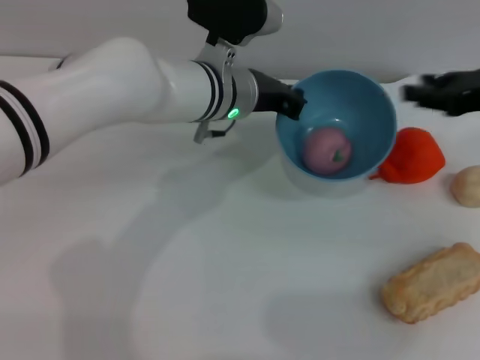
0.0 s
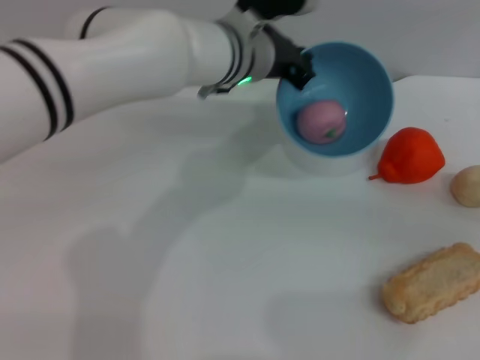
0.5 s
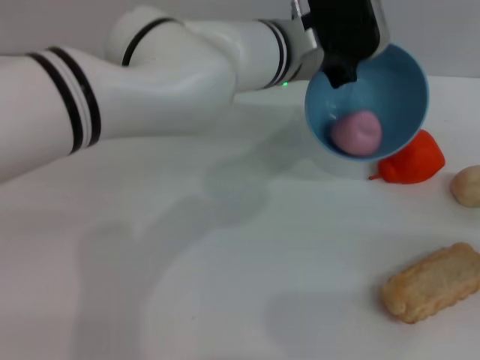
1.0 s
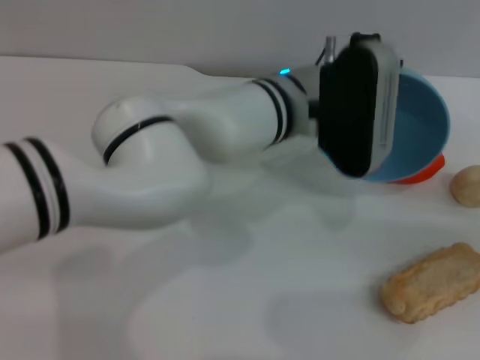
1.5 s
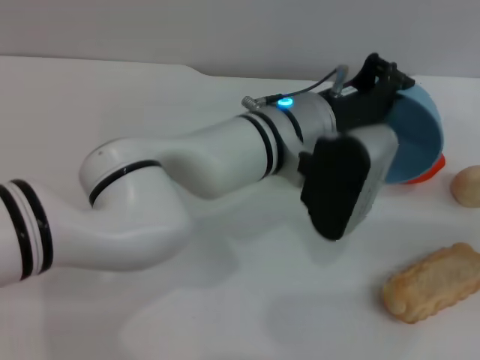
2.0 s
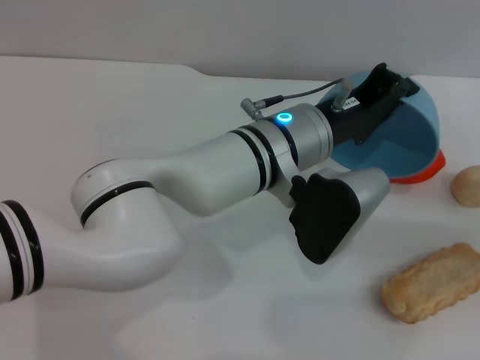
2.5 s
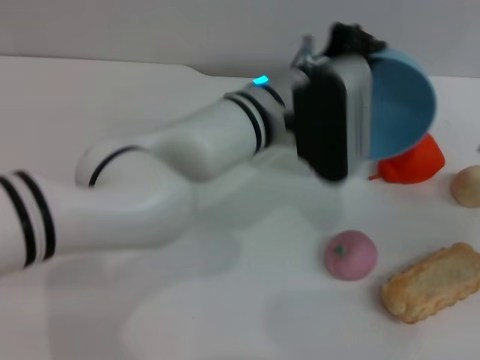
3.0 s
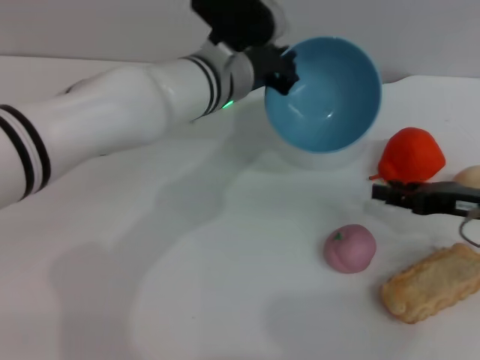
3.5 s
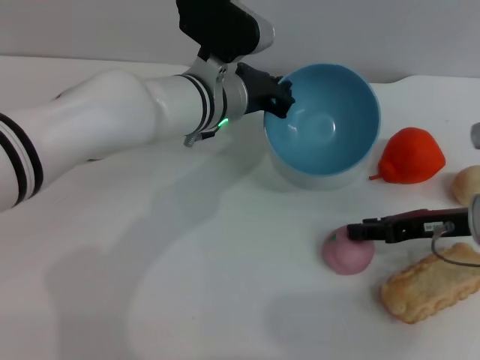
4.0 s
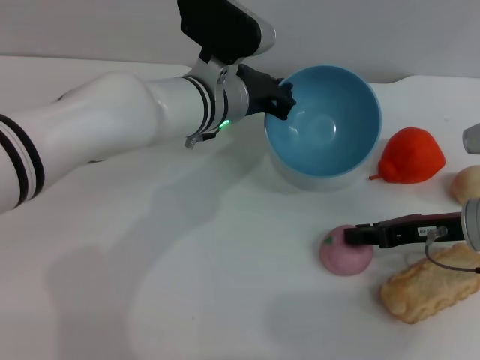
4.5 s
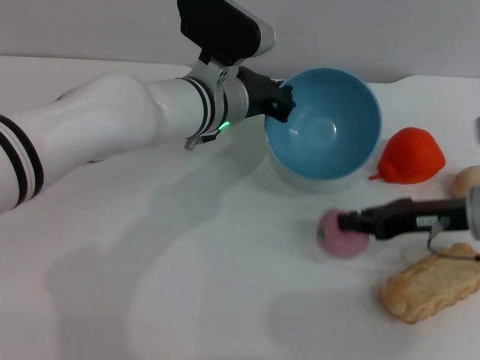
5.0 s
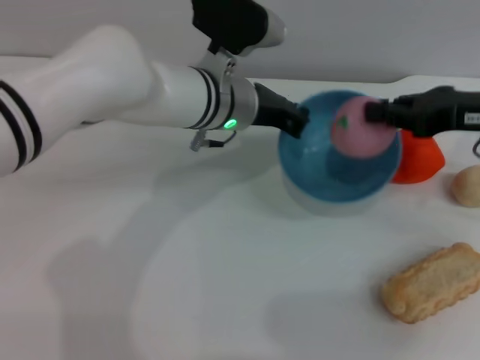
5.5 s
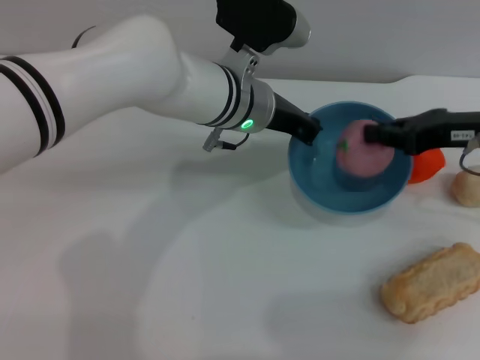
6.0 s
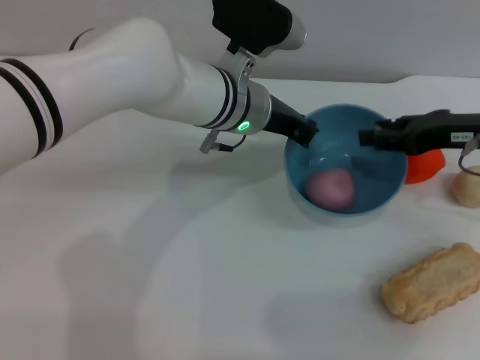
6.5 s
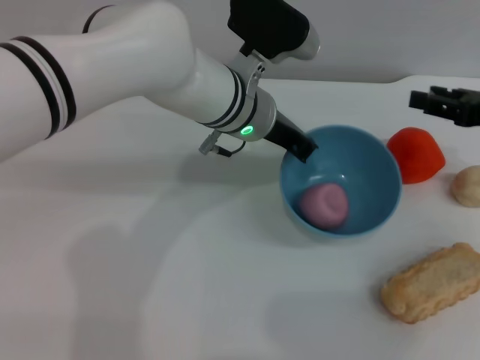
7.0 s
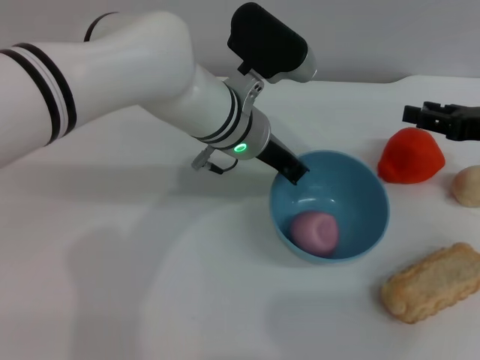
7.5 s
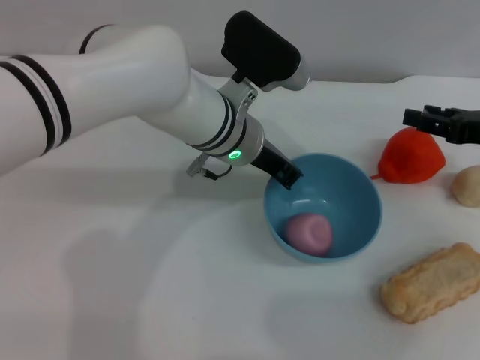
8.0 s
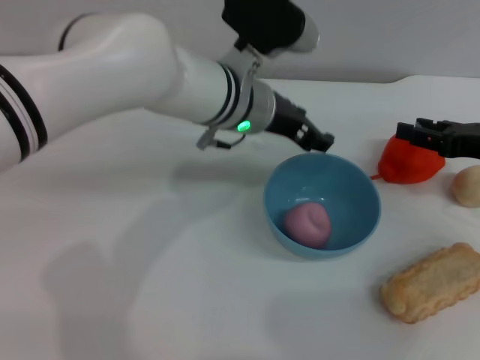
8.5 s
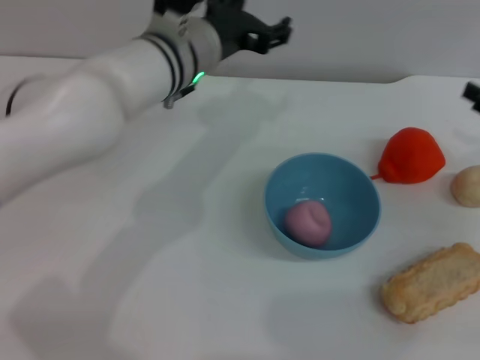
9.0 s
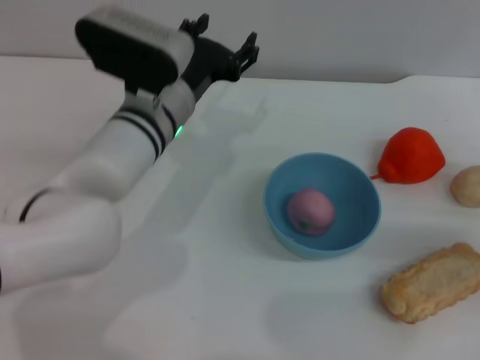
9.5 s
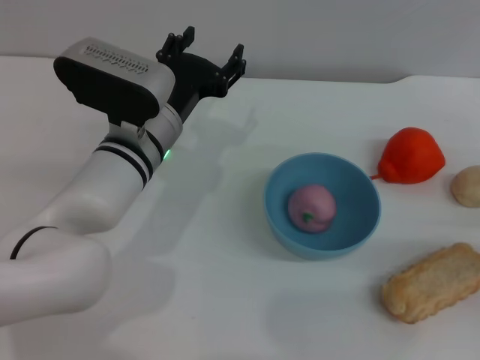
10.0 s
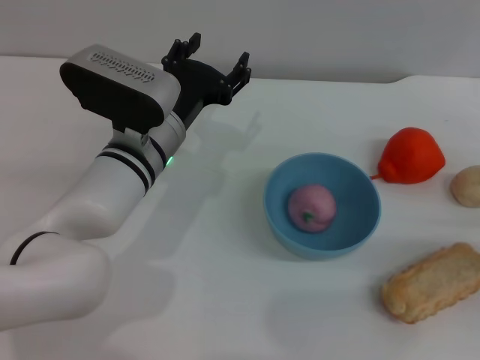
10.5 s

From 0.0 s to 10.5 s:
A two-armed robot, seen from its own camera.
Task of the whole recording: put the peach into the blue bowl and pour it out repeatedly.
Step, from 0.0 s to 2.5 s: Pour the peach out of bowl.
Step, from 3.0 s to 5.0 s: Pick up the peach with the right gripper.
Step, from 5.5 s to 6.5 s: Place the peach into the bowl.
Step, from 7.0 s to 8.5 s: Place the bowl on the table.
From 0.0 s to 2.0 s: The left gripper goes some 10 cm backward and to the right, while the right gripper moves to the right, downward and backward, roughly 15 cm.
From 2.0 s to 4.0 s: The left gripper travels to the left and forward by some 10 cm, while the right gripper goes roughly 15 cm to the left.
From 4.0 s to 6.5 s: The right gripper shifts approximately 10 cm upward, and closes and opens again.
From 6.5 s to 8.5 s: The right gripper changes place by approximately 5 cm; the left gripper opens.
From 8.5 s to 10.5 s: The left gripper goes some 10 cm to the left and downward, and opens up. The right gripper travels to the right, backward and downward by roughly 10 cm.
